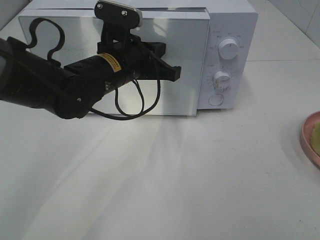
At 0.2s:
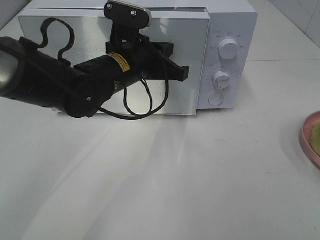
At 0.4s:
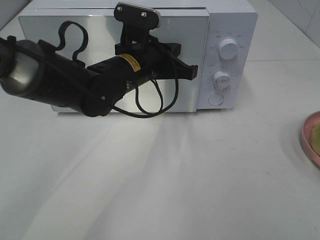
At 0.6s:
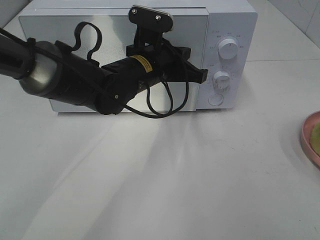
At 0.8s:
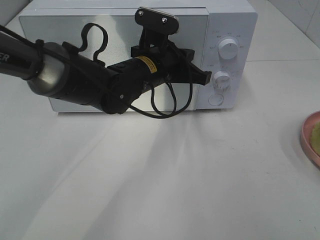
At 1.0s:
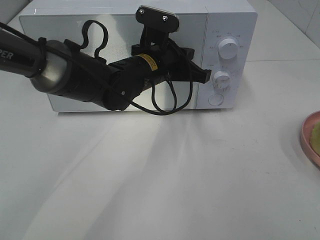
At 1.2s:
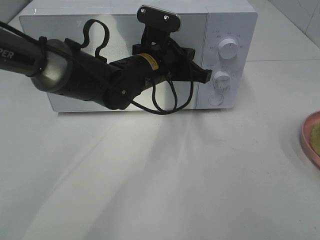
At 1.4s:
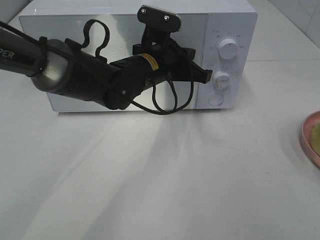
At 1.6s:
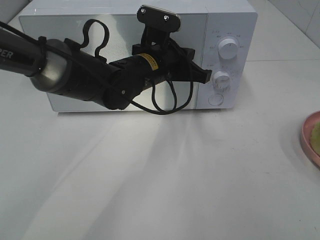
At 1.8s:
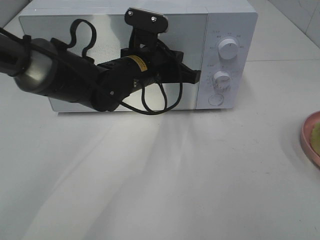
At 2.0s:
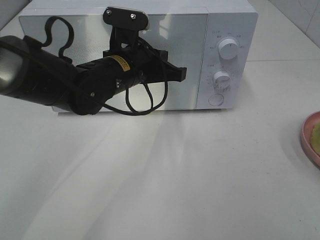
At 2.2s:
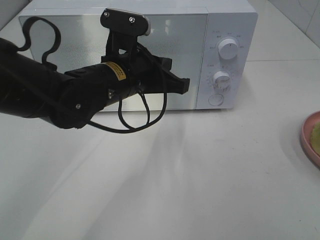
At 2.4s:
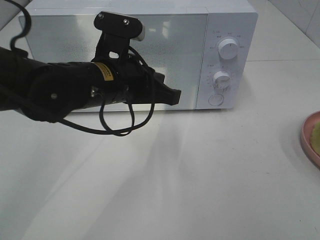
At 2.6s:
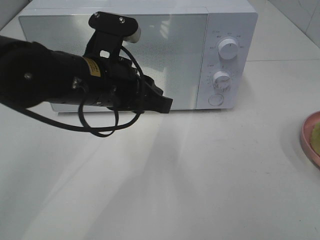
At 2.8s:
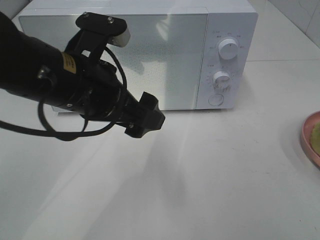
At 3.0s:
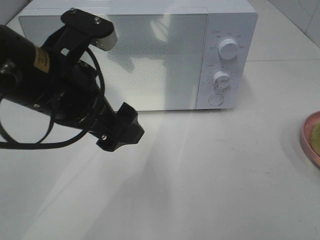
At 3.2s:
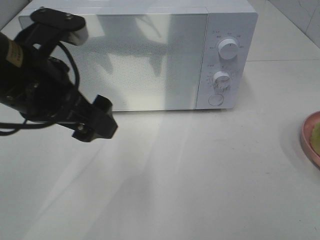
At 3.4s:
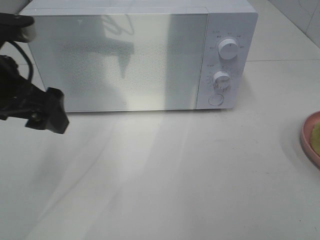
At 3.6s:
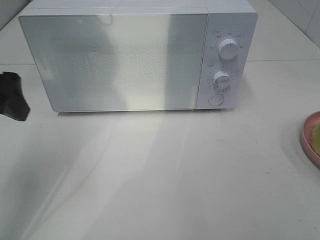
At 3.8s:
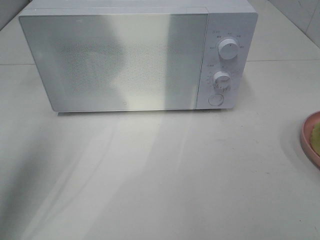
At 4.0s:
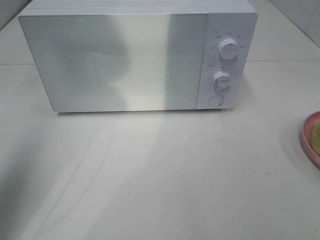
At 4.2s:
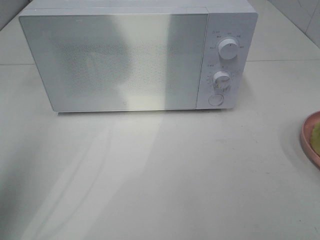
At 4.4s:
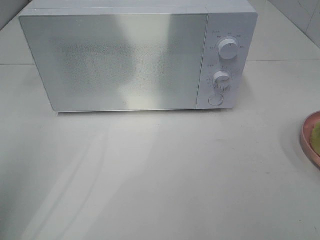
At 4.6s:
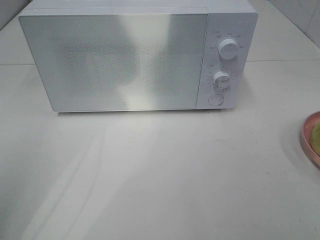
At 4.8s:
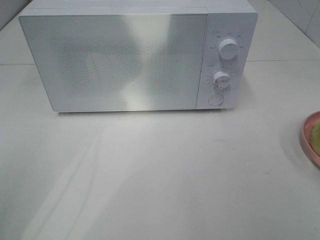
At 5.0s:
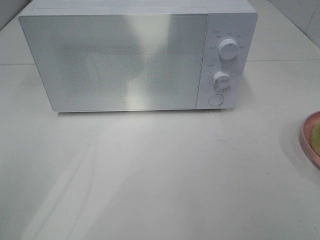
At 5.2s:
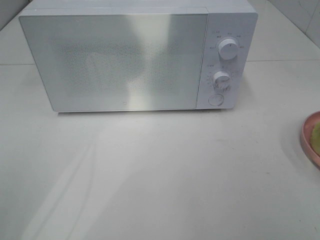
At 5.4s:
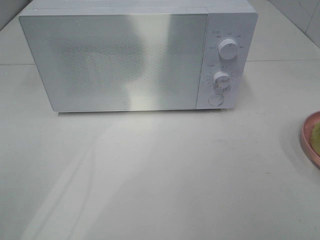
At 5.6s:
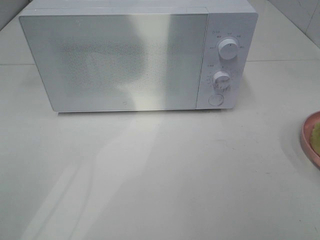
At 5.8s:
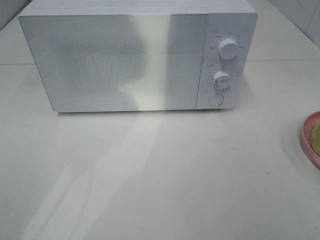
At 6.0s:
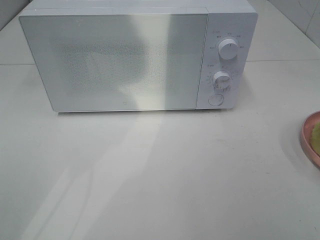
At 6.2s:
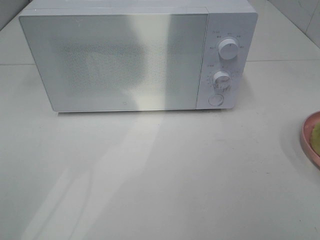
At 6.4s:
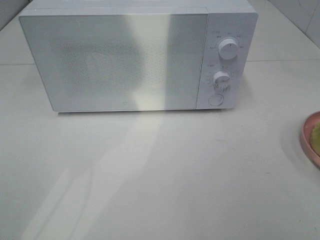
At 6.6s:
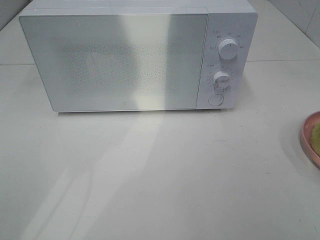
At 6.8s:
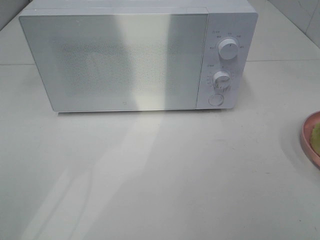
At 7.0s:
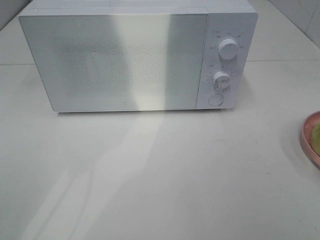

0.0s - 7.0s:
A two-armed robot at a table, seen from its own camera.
Task of the whole recording: Heat Sandwich.
Step, 0.0s - 2.0s: Left hand: close the microwave door.
0.0s - 1.4s: The left gripper is displaced to the right by some 5 cm.
1.4s - 2.8s: The left gripper goes approximately 15 cm backward, to the left and upward, and opens up.
2.8s - 4.2s: The left gripper moves to the left and upward, about 25 cm.
4.2s - 5.6s: The left gripper heads backward and downward, covering about 15 cm.
5.6s - 7.0s: Both grippers stay about where they are.

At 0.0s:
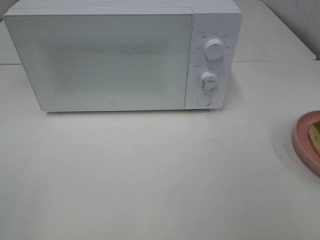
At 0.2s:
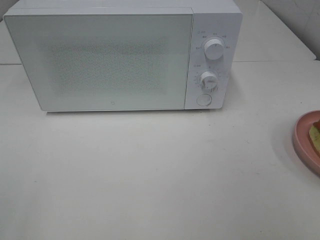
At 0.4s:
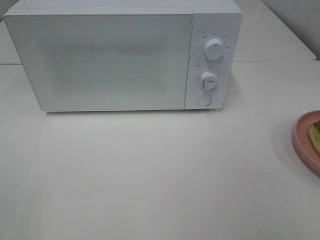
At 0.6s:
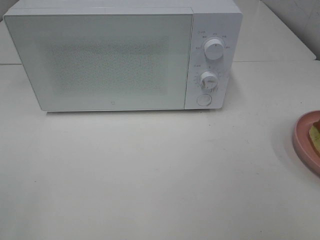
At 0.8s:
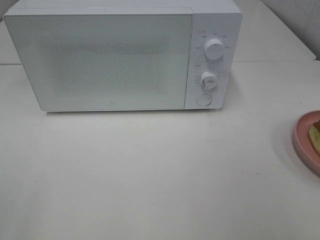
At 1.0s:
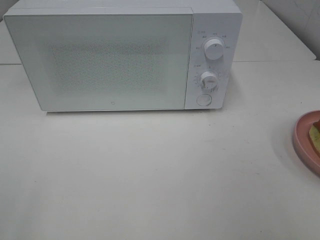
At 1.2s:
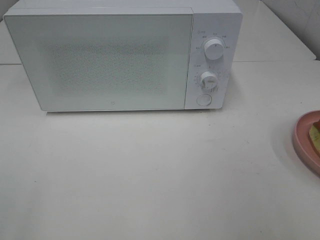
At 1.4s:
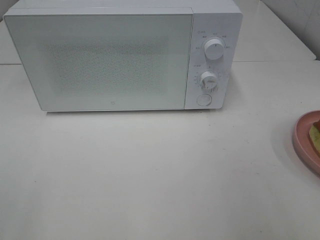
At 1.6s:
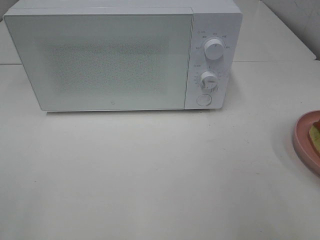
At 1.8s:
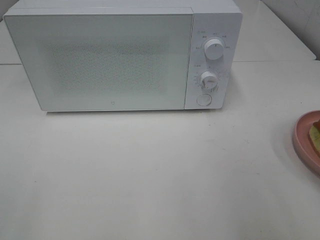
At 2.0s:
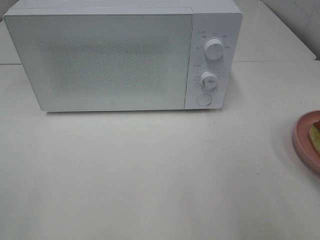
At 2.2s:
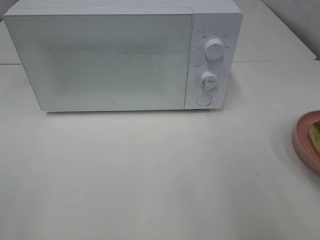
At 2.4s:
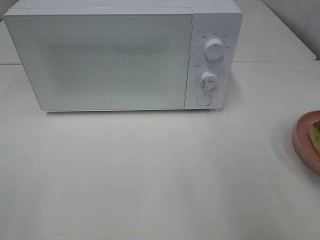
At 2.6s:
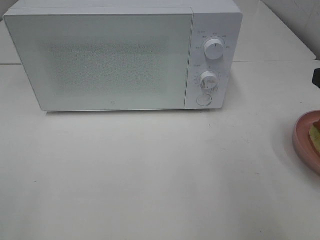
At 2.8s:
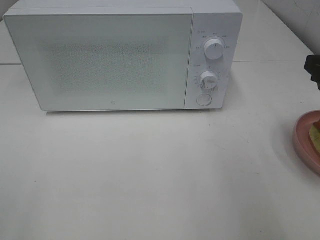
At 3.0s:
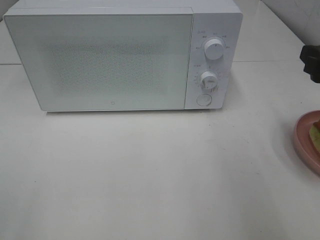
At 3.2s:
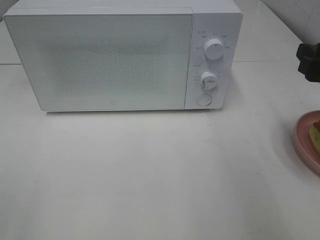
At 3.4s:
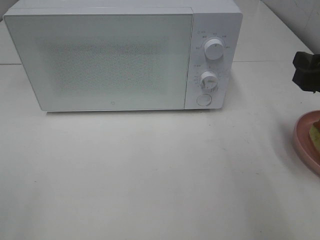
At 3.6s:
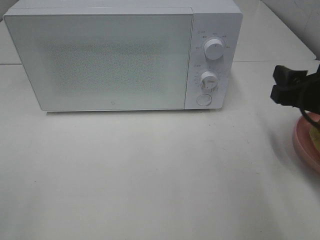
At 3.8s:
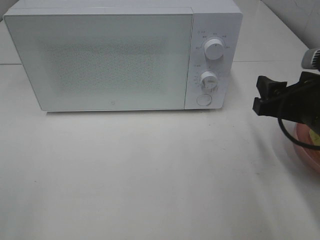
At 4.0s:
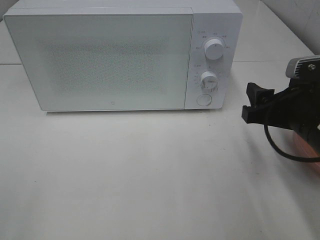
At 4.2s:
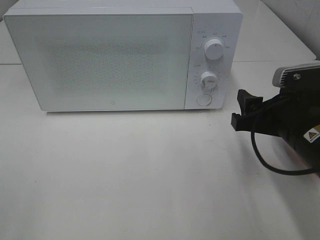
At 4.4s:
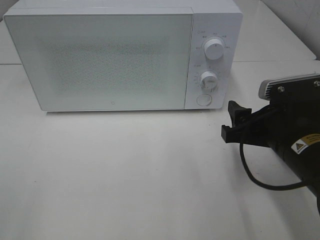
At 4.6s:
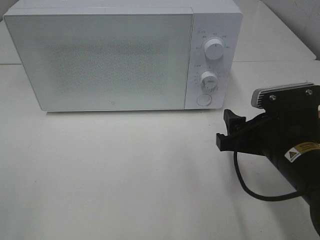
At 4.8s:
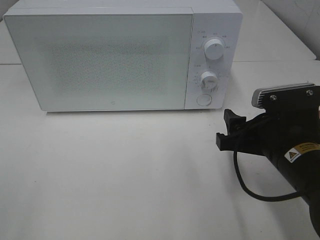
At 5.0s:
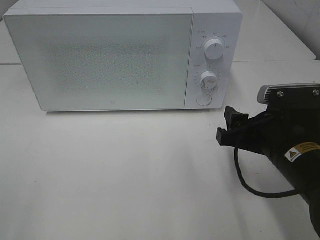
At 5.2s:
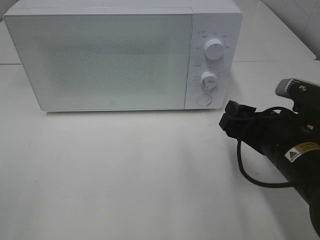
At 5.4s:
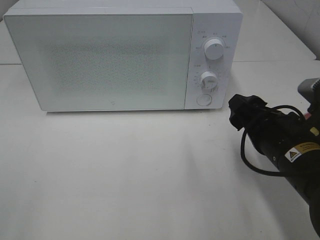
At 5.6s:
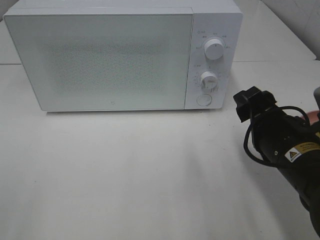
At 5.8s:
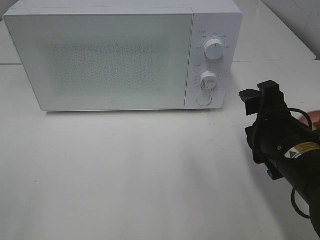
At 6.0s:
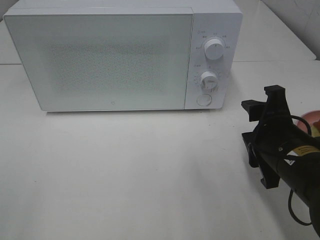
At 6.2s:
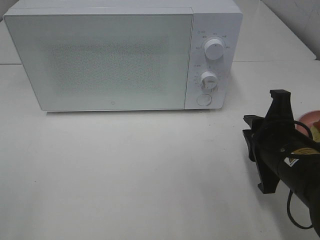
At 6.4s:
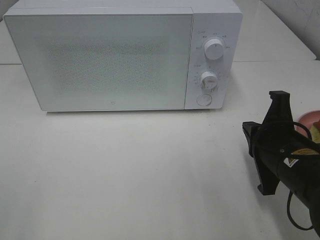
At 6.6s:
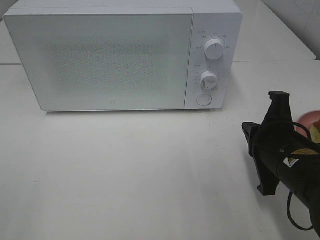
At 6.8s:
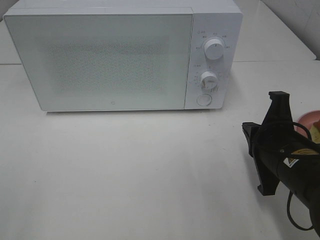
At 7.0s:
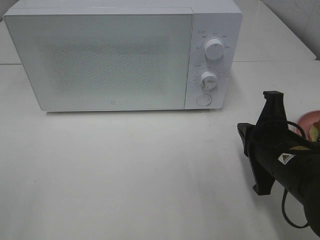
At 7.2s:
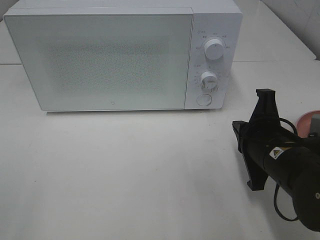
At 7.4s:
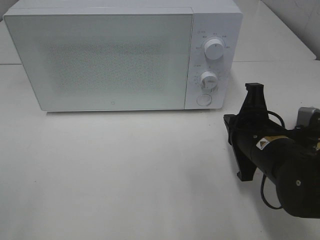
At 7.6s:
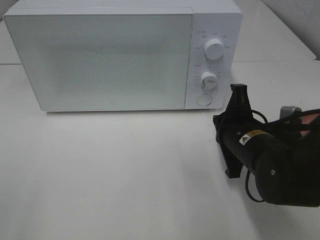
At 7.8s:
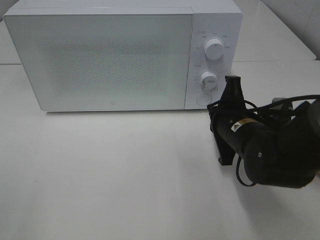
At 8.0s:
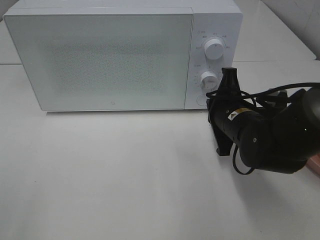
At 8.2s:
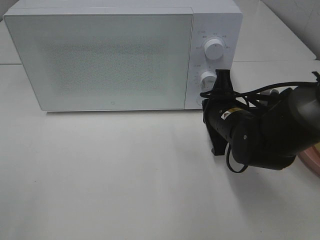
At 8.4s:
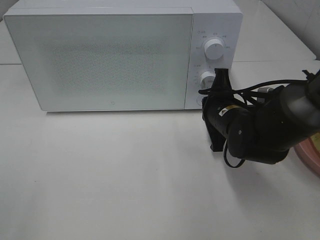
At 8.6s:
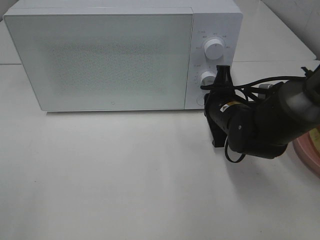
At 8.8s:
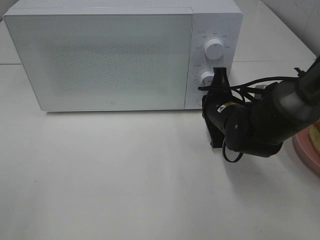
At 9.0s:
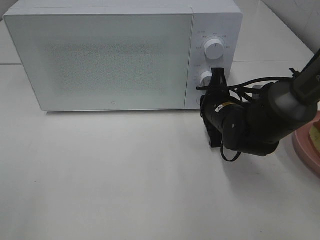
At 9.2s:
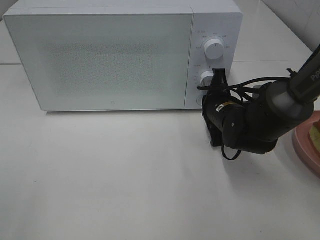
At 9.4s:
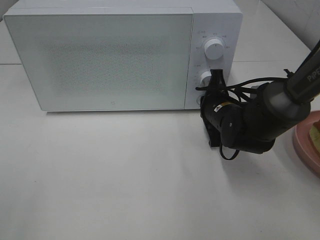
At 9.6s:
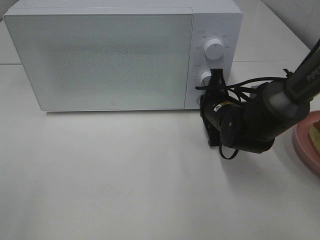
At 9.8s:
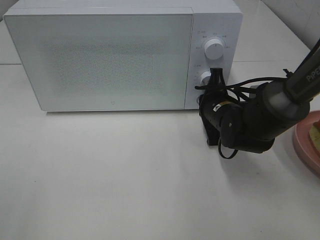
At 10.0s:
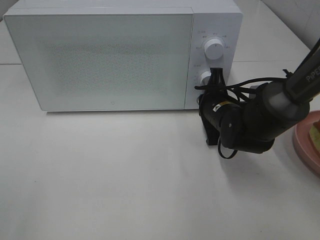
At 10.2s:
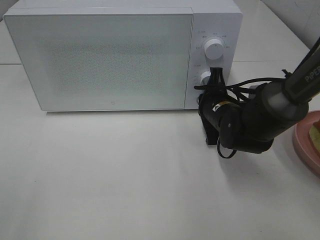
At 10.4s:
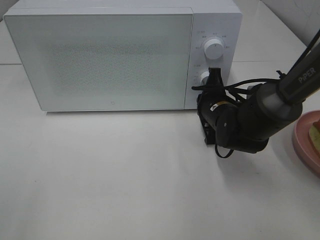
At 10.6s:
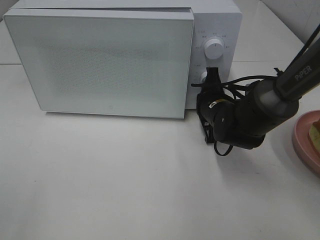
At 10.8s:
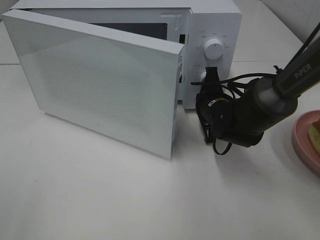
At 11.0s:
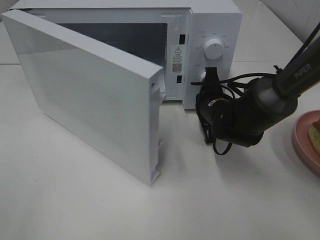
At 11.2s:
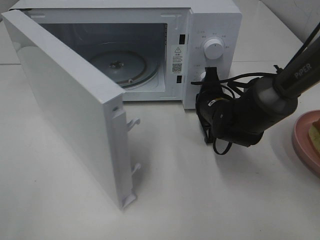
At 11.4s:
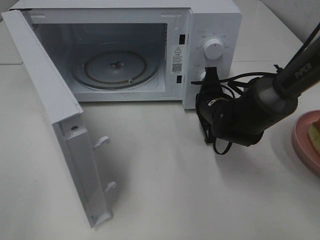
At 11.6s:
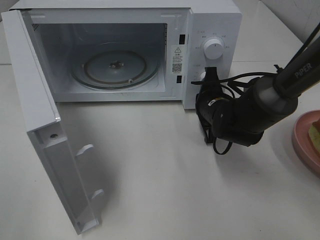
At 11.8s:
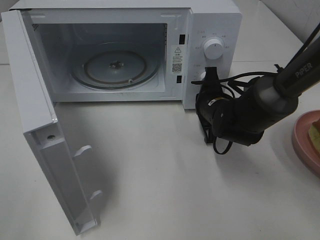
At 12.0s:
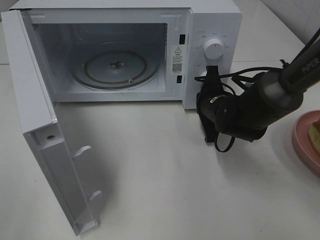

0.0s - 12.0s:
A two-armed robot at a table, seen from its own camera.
Task of the whole recording: Heat Sandwich.
1.6s - 3.0s: The right gripper goes approximately 15 cm forward.
3.0s - 4.4s: The right gripper goes some 15 cm downward and to the left.
6.0s - 7.6s: The right gripper moves roughly 5 cm, and closes.
7.6s - 9.0s: The right gripper is displaced forward by some 10 cm.
9.0s - 10.4s: The grippers move only a little.

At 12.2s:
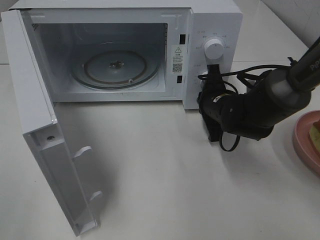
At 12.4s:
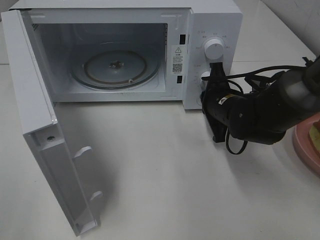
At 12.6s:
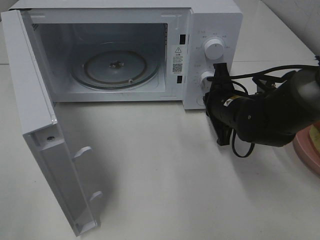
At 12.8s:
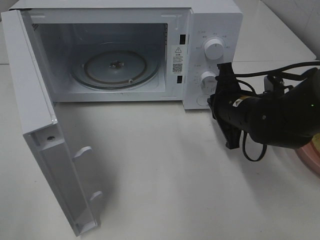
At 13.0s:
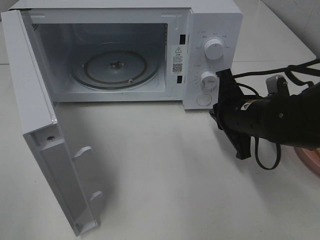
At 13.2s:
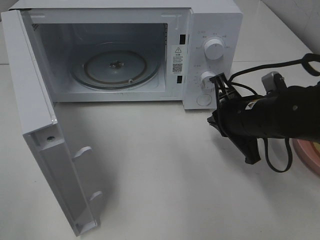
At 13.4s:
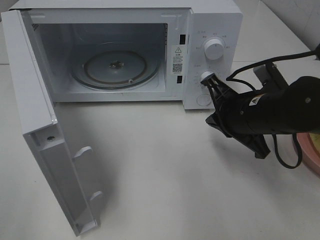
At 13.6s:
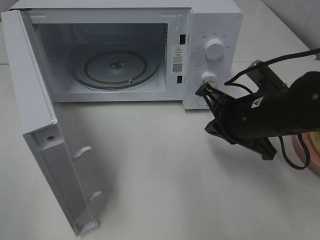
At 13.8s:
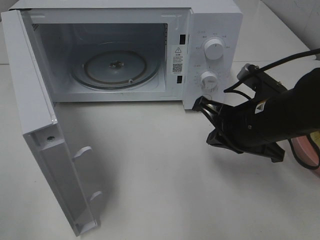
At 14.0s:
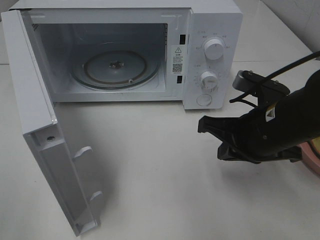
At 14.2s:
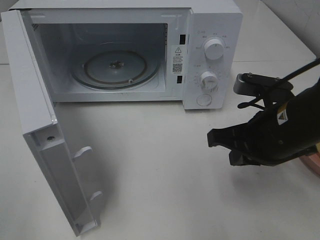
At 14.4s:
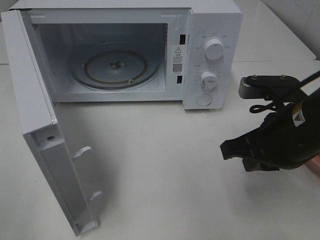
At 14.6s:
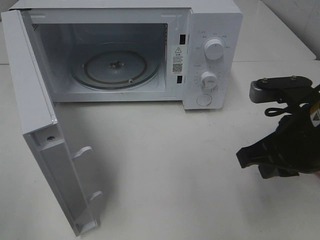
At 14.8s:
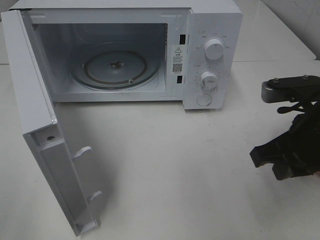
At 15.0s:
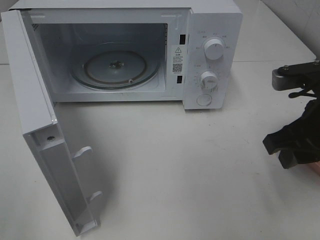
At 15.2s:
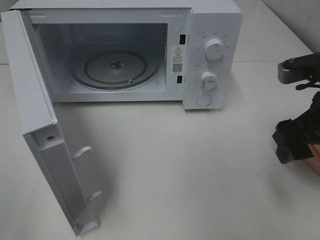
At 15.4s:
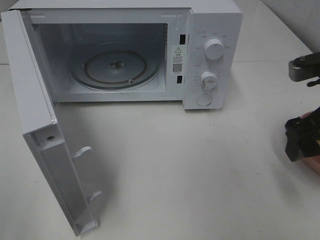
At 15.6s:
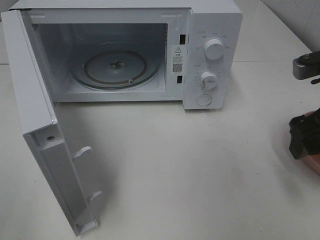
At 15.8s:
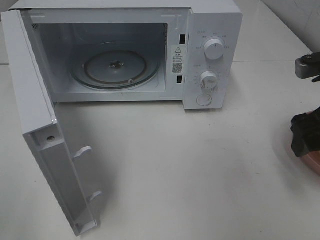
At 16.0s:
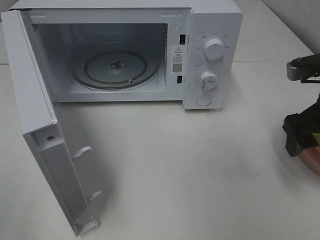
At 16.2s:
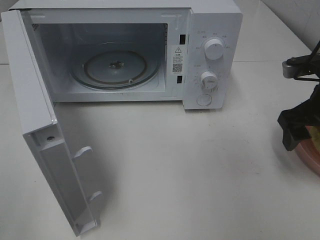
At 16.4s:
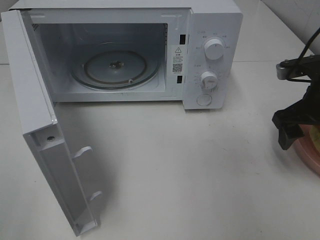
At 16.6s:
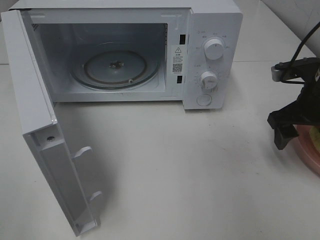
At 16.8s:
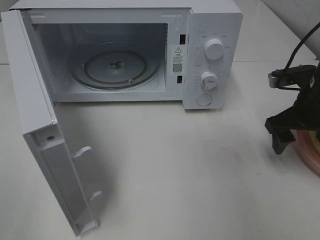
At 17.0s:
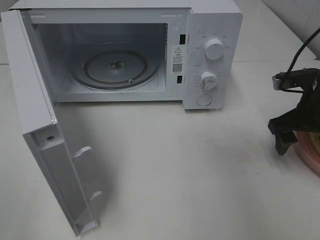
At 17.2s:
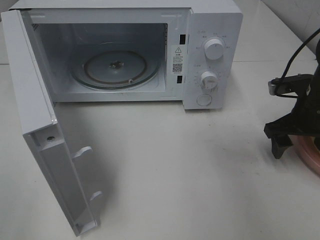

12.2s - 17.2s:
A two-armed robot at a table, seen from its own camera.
Task of the whole recording: Heat Sandwich.
12.2s - 13.8s: The right gripper moves backward and upward, about 15 cm.
13.8s - 15.6s: The right gripper heads to the right and upward, covering approximately 10 cm, and opens its fingers.
15.6s - 17.2s: The right gripper goes about 15 cm forward and downward.
